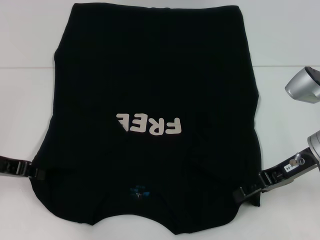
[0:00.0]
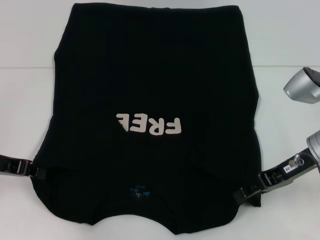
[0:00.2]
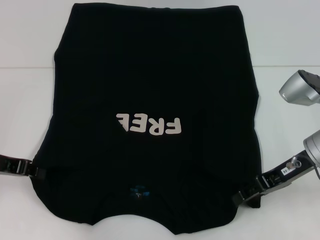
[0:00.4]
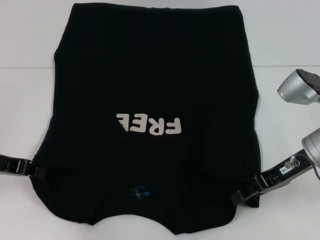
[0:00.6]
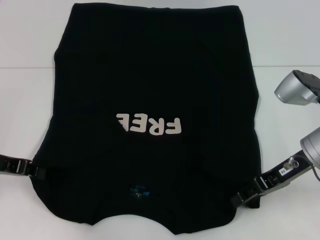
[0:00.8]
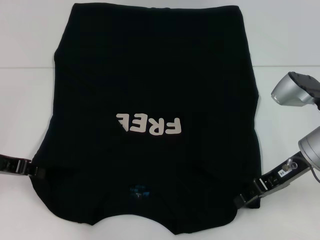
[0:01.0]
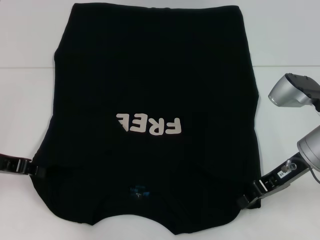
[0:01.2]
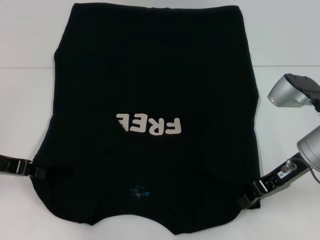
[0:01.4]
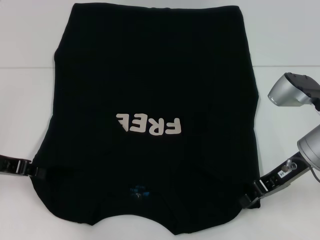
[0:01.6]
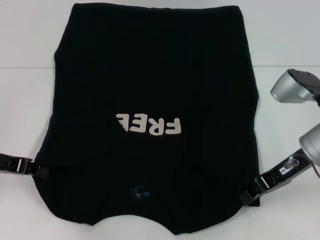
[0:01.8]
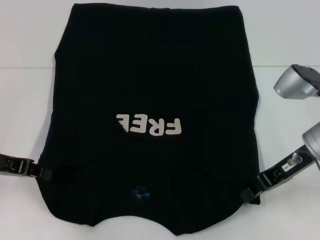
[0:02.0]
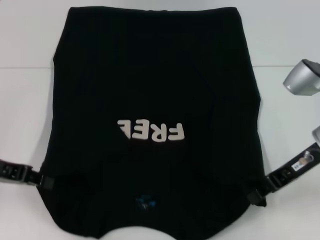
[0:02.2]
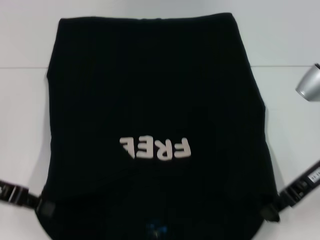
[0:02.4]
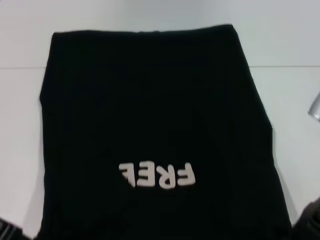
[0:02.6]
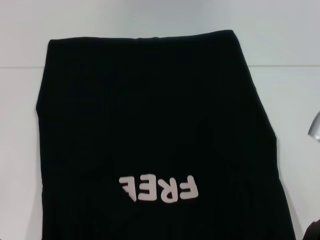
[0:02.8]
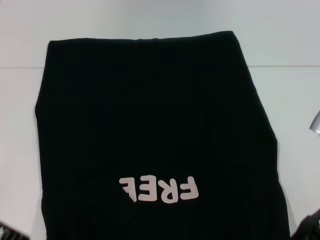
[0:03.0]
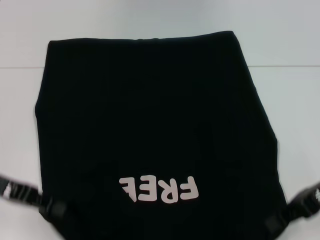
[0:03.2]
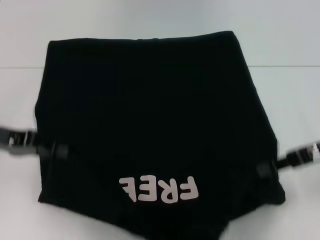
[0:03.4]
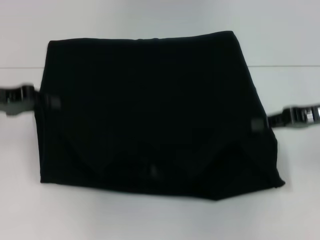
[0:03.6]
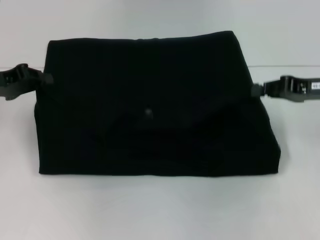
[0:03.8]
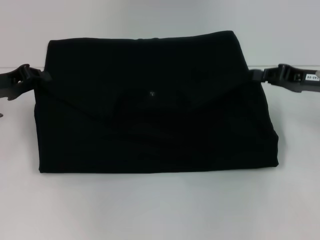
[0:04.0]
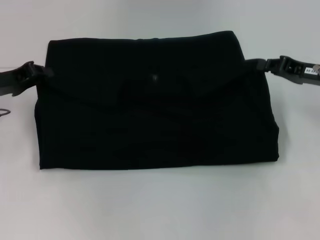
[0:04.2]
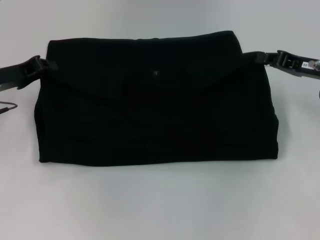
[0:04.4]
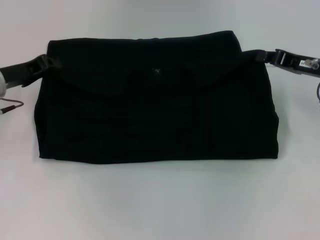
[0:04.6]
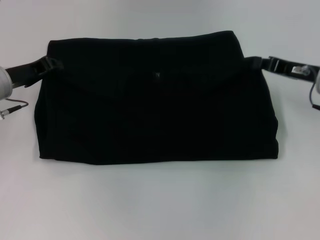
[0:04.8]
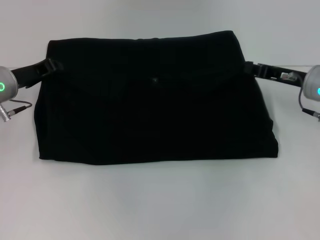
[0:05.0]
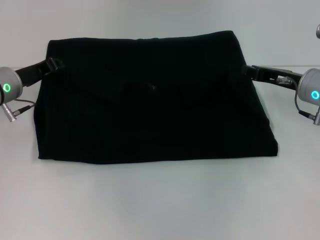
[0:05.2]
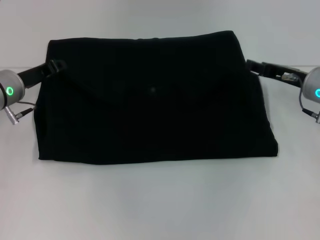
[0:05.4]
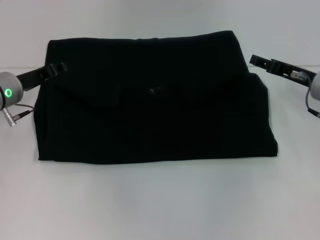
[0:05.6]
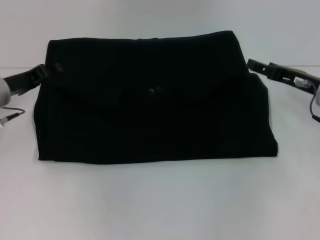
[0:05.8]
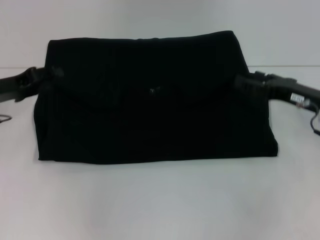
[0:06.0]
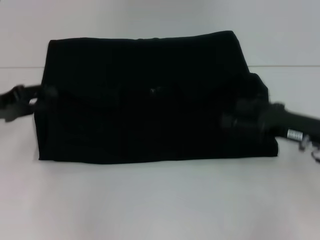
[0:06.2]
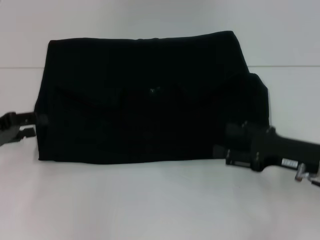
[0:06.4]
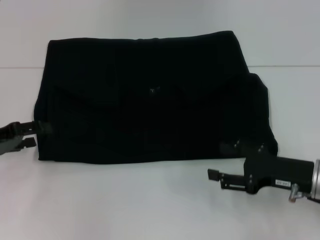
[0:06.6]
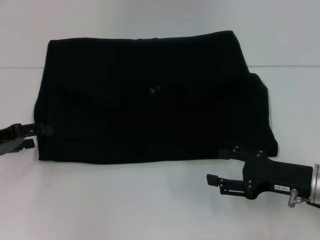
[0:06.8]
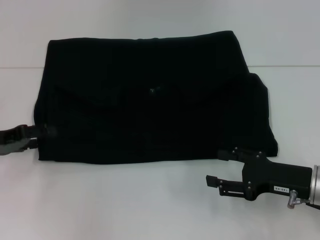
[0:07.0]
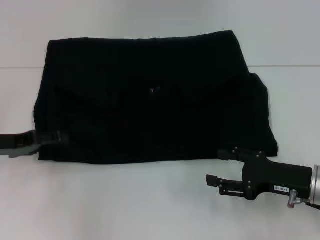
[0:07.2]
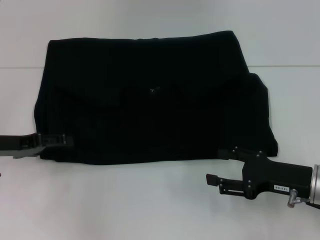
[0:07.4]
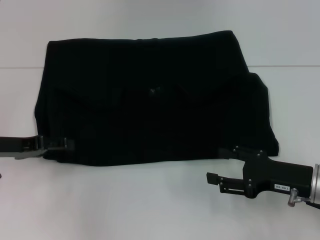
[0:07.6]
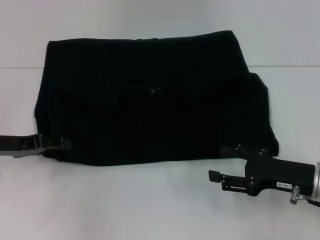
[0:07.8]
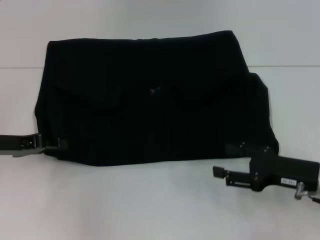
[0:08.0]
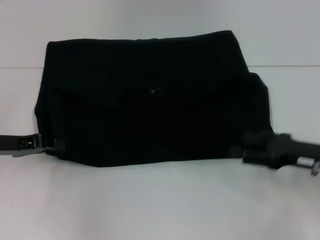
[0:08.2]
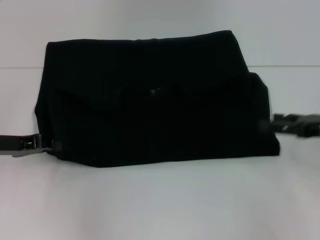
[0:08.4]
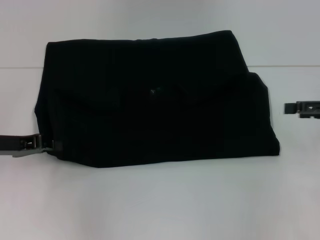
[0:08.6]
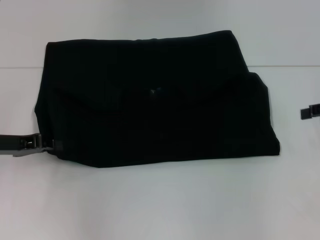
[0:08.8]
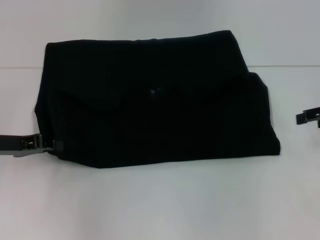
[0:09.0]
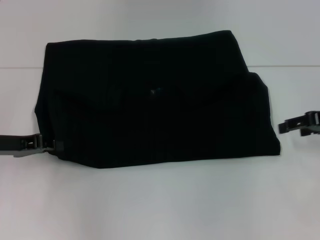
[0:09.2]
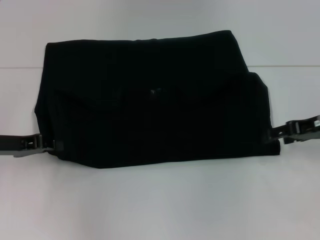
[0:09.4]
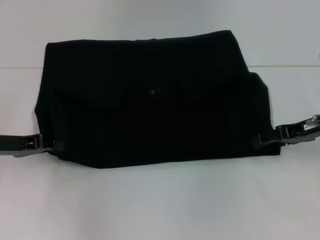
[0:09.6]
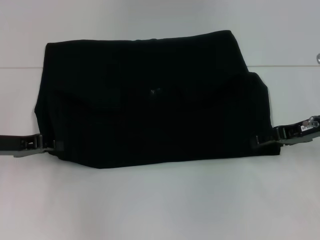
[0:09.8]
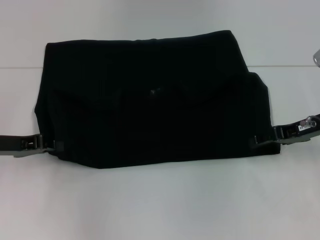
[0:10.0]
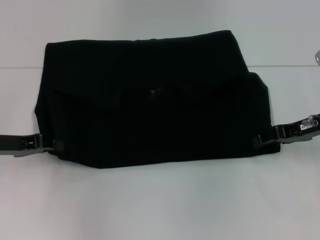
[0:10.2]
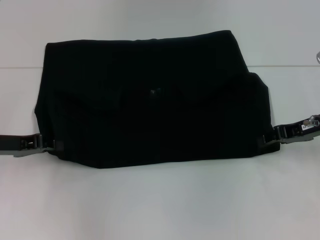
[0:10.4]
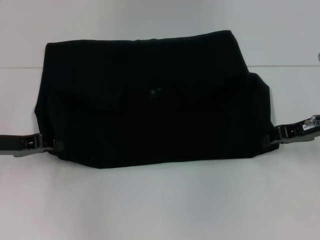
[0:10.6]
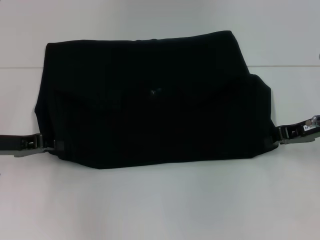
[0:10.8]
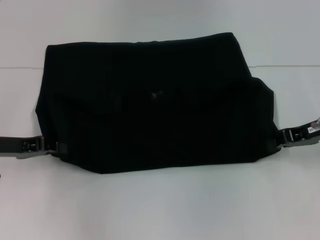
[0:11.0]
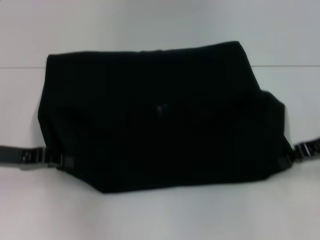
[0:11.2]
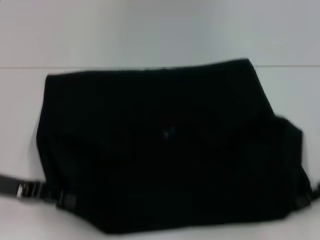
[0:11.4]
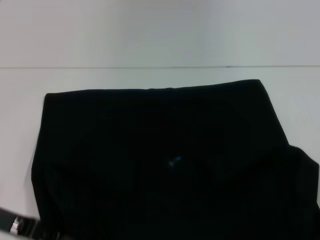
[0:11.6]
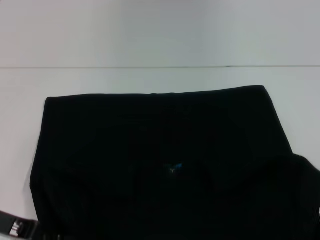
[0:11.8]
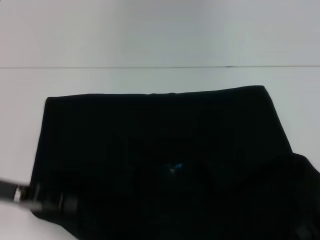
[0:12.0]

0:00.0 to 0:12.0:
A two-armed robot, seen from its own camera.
Step, 0:00.4 to 0:05.8: Fold the clothes with your left hand.
Step, 0:00.4 to 0:05.8: Fold the clothes with your right hand.
Step, 0:06.0 to 0:11.4: Pull the clothes with your left hand.
Step, 0:06.0 to 0:11.4: Pull the clothes with your right hand.
0:00.0 to 0:01.6: The right gripper closes.
0:01.6 to 0:03.0: The left gripper moves approximately 5 cm, while the right gripper changes place by approximately 5 cm.
0:03.0 to 0:04.4: The grippers both shift forward by roughly 10 cm.
0:04.4 to 0:06.0: The right gripper changes place by roughly 5 cm, and opens. Meanwhile the left gripper opens.
0:06.0 to 0:07.6: The left gripper shifts by some 5 cm, while the right gripper shifts some 10 cm backward.
0:07.6 to 0:09.0: The left gripper closes up, while the right gripper shifts some 20 cm upward, to the right and forward.
0:09.0 to 0:10.4: The right gripper goes about 5 cm to the left.
0:10.4 to 0:12.0: The left gripper is displaced backward by some 5 cm. Meanwhile the right gripper is displaced backward by some 10 cm, and closes up.

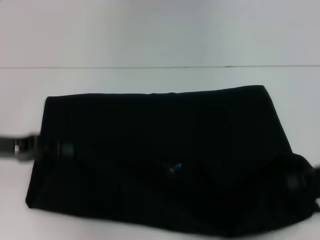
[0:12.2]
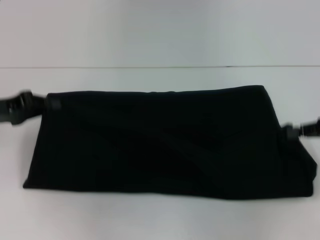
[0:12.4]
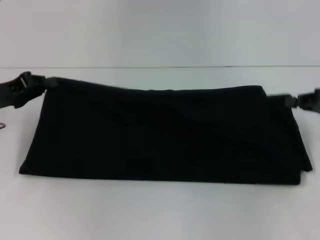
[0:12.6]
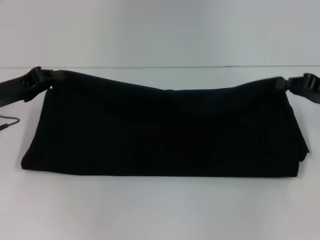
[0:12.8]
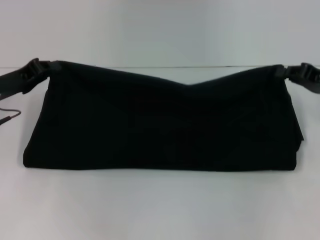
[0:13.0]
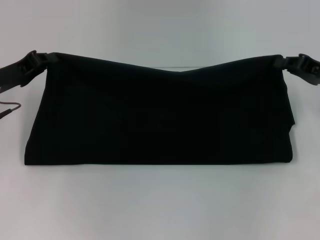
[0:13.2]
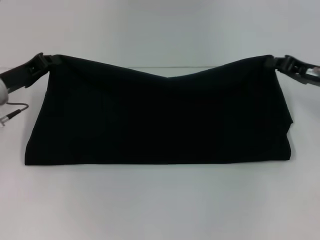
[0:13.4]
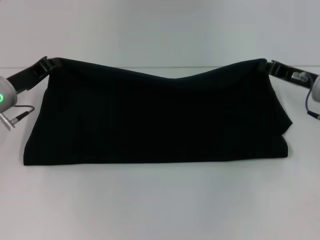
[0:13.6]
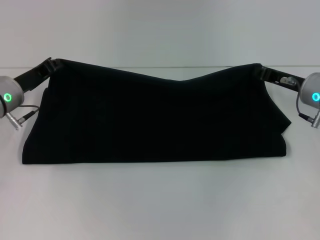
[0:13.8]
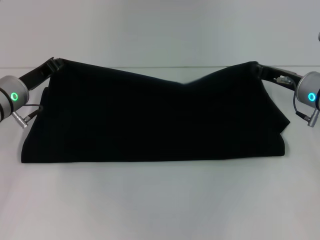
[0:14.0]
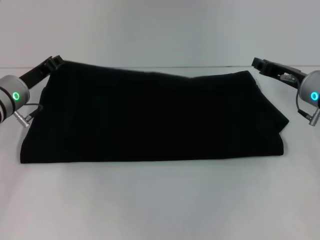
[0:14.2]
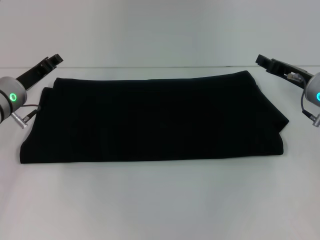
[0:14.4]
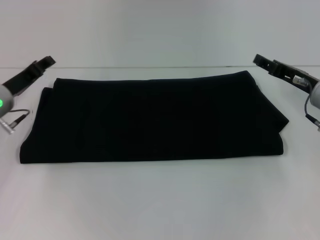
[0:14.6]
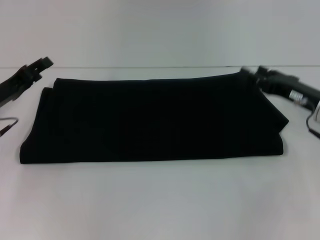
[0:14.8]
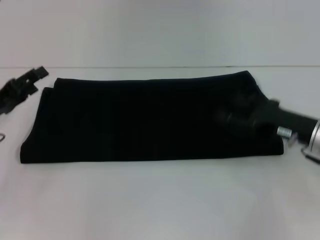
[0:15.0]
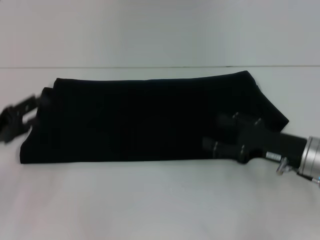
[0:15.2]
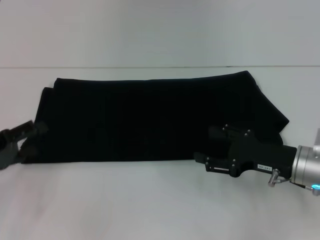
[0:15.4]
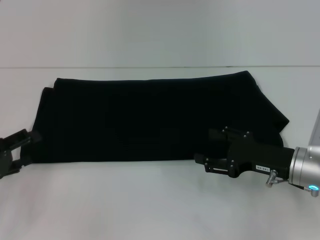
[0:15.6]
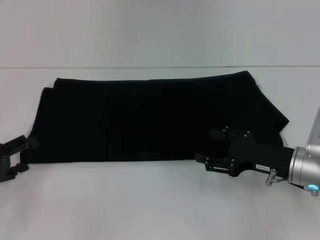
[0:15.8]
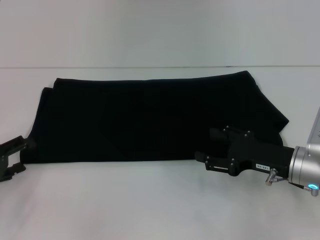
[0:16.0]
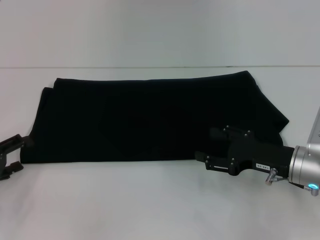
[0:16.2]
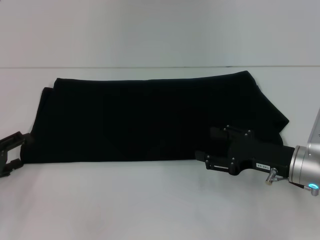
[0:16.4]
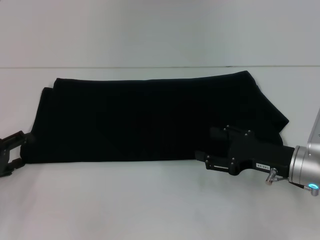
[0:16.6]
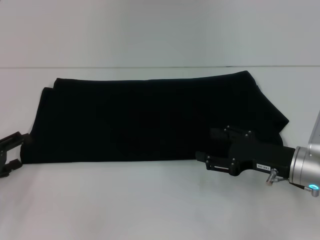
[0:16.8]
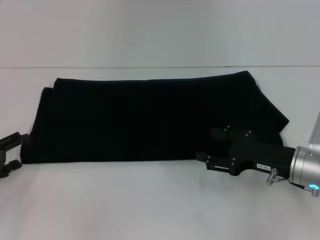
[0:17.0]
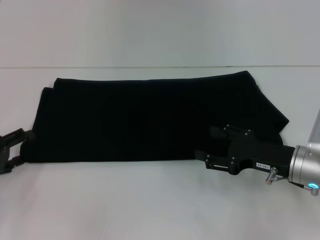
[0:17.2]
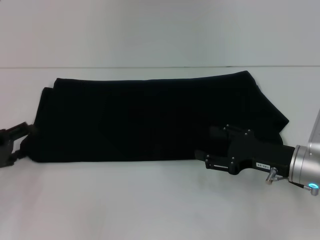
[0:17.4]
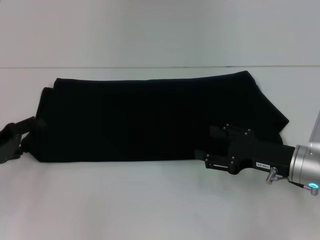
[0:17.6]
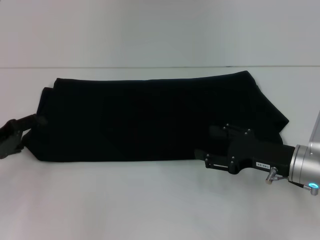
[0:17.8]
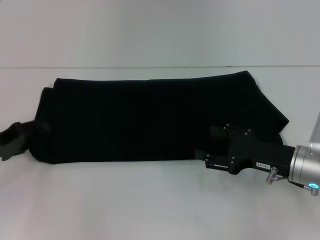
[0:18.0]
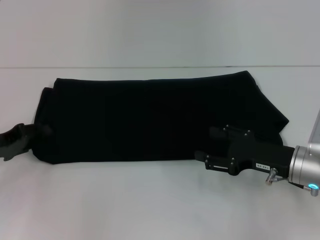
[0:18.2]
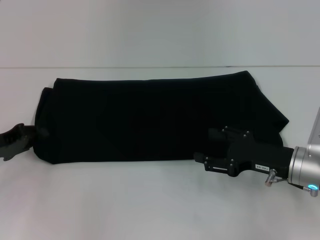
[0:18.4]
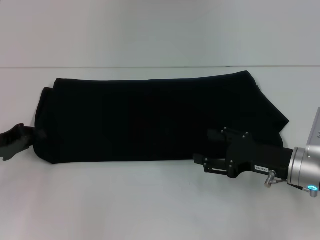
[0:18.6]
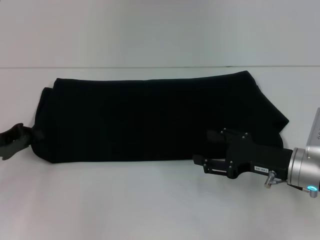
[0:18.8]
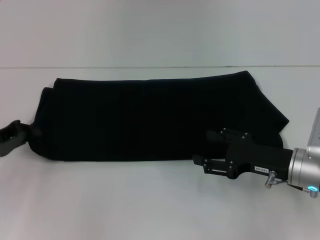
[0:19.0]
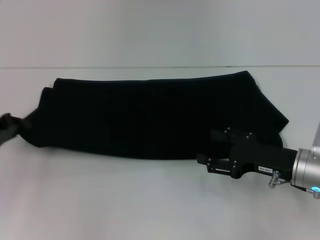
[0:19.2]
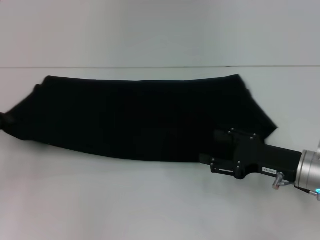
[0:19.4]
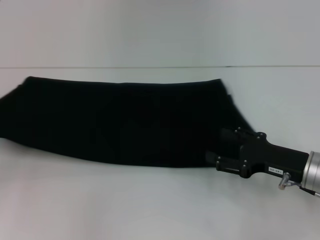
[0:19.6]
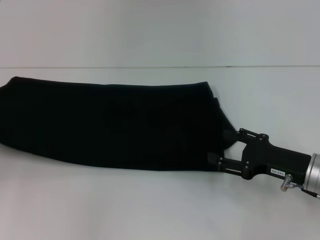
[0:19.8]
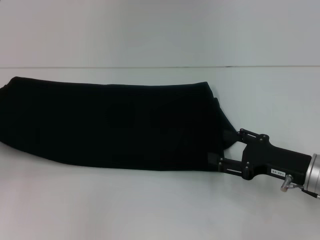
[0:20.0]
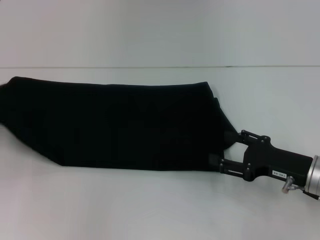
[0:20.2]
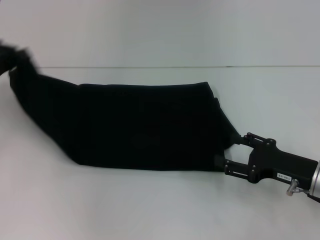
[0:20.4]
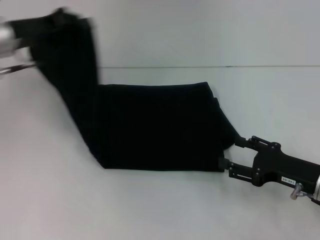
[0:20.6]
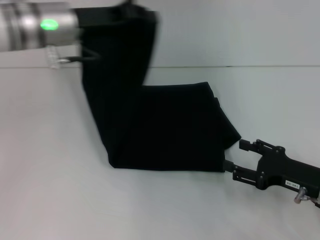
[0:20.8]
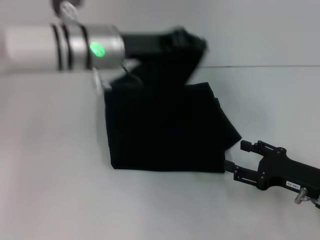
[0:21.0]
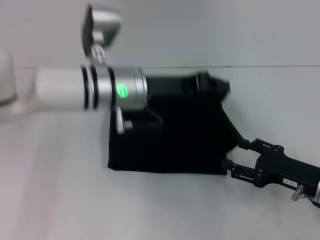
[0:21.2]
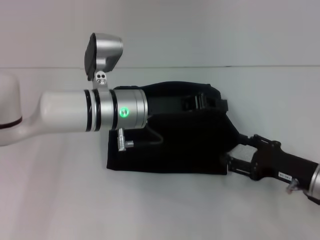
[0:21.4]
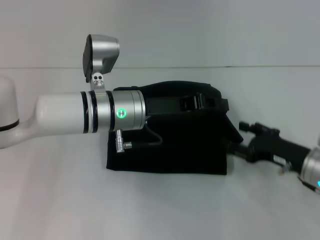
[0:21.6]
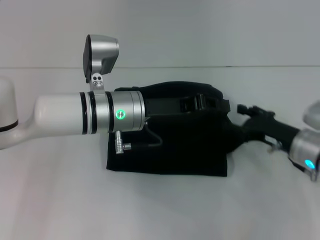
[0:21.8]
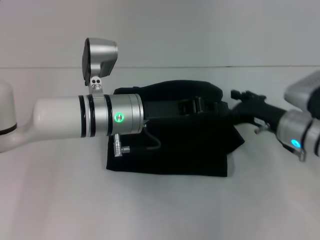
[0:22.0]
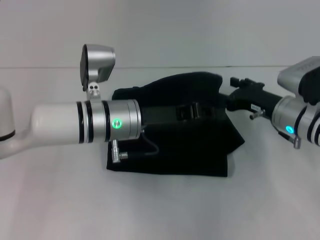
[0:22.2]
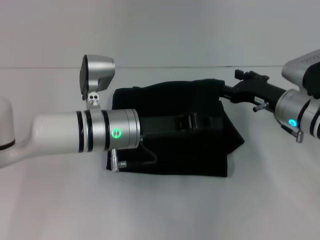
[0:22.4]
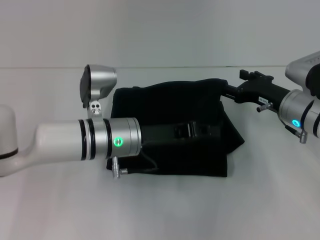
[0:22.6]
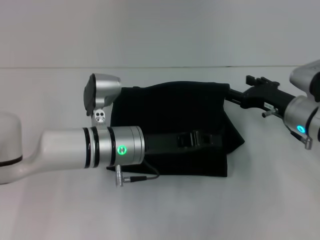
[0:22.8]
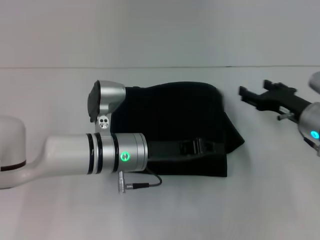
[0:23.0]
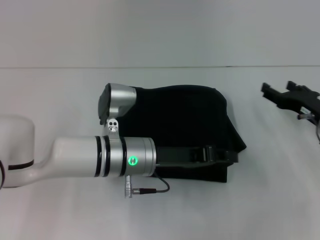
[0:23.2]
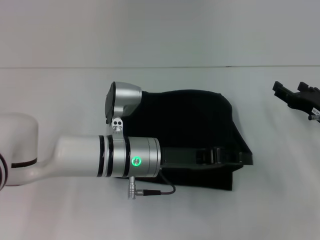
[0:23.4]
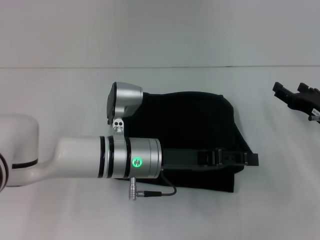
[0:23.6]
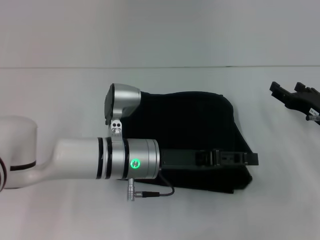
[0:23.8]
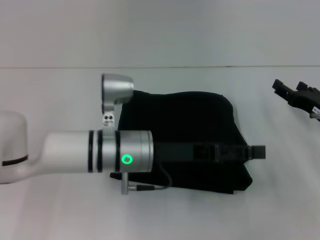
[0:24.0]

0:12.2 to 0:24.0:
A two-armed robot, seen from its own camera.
Step, 0:12.2 to 0:14.8: Fold the clothes with your right hand.
Step, 0:12.2 to 0:23.4: Fold the clothes with your left hand.
0:12.2 to 0:13.6: The left gripper moves forward, about 10 cm. The right gripper heads forward and to the left, covering roughly 10 cm.
0:13.6 to 0:15.2: The right gripper travels backward by roughly 10 cm, and opens its fingers. Meanwhile the left gripper goes some 10 cm backward and to the left, and opens.
0:15.2 to 0:18.2: The grippers make only small movements.
0:18.2 to 0:19.6: The left gripper heads to the left, covering some 5 cm, and closes its fingers.
0:19.6 to 0:21.0: The left gripper moves to the right, about 30 cm.
0:21.0 to 0:22.6: The right gripper is displaced forward by some 10 cm. The left gripper goes approximately 10 cm downward and backward.
0:22.6 to 0:24.0: The right gripper travels to the right by some 5 cm. The left gripper opens up.
